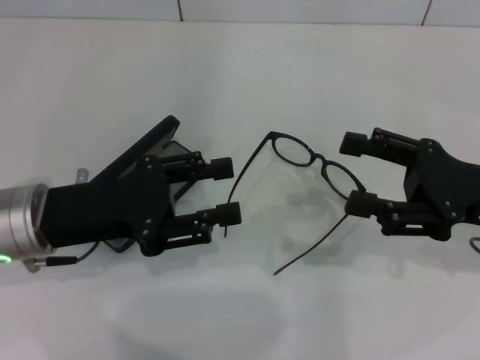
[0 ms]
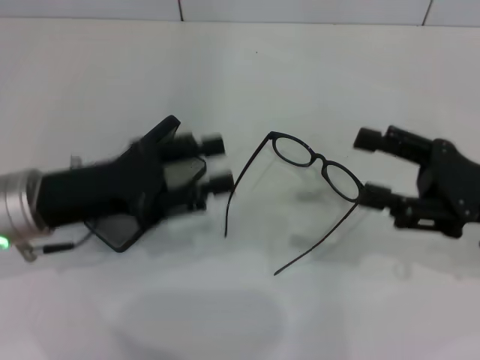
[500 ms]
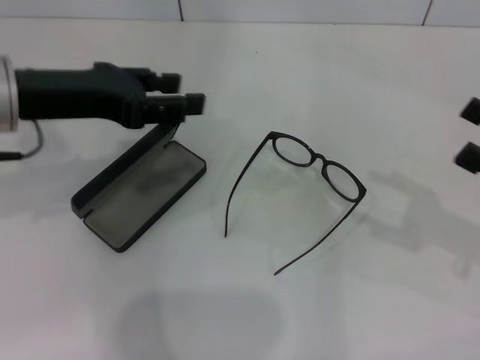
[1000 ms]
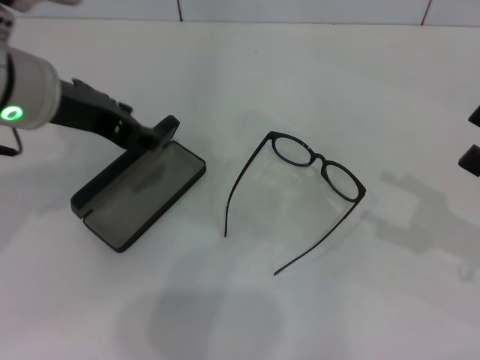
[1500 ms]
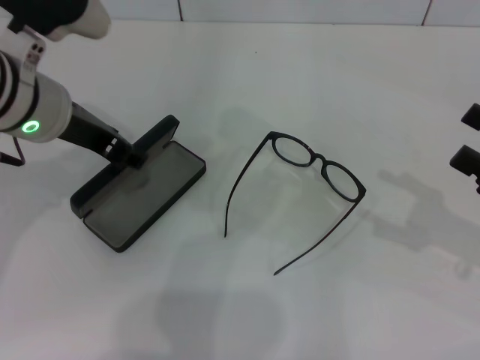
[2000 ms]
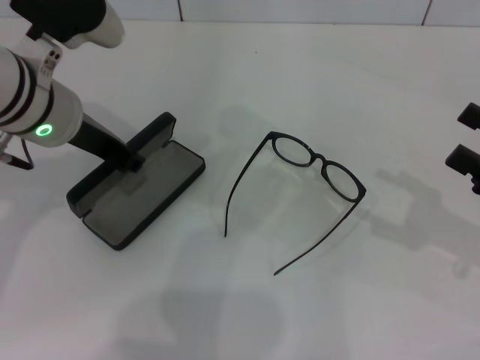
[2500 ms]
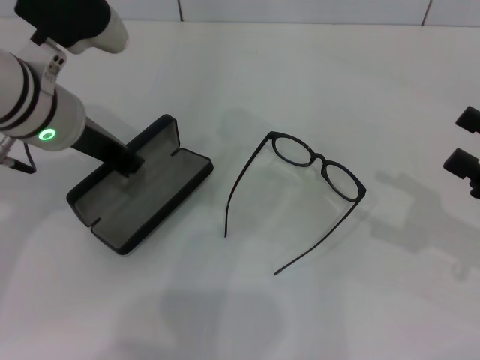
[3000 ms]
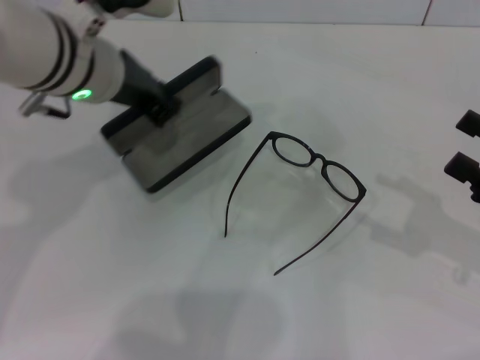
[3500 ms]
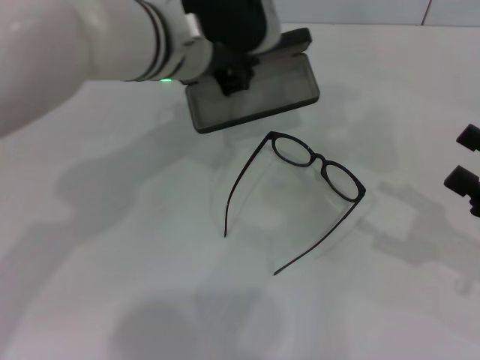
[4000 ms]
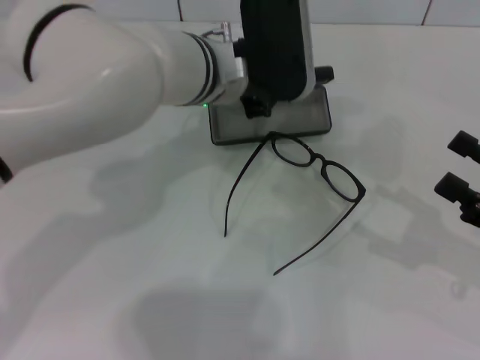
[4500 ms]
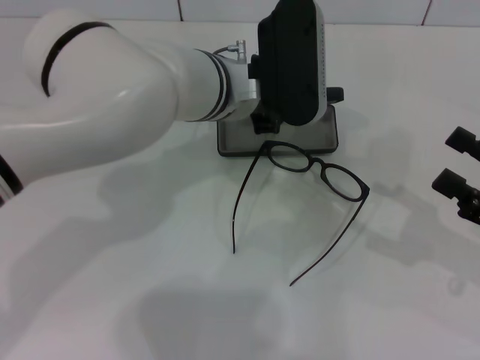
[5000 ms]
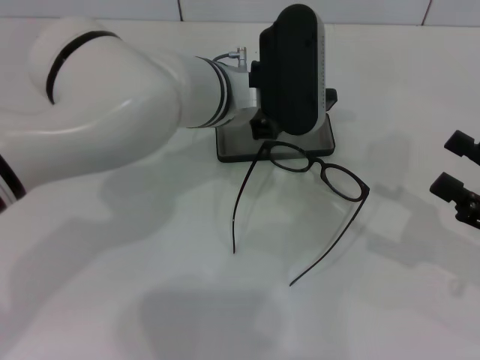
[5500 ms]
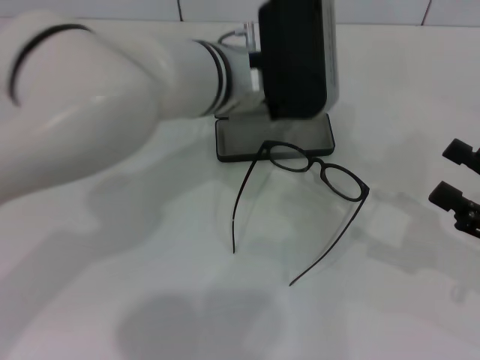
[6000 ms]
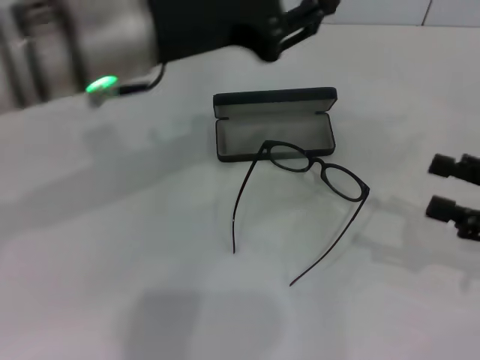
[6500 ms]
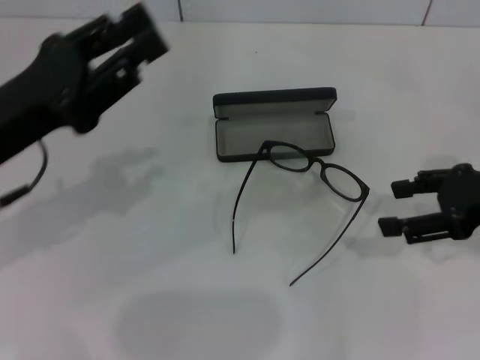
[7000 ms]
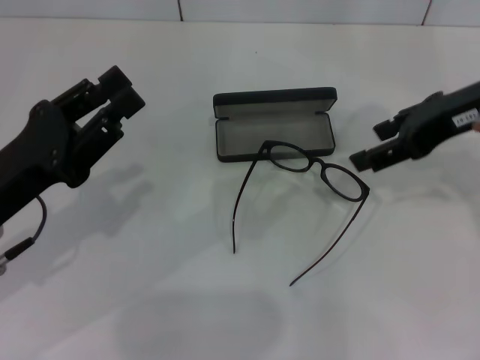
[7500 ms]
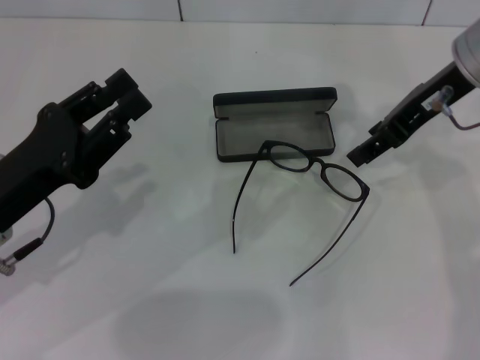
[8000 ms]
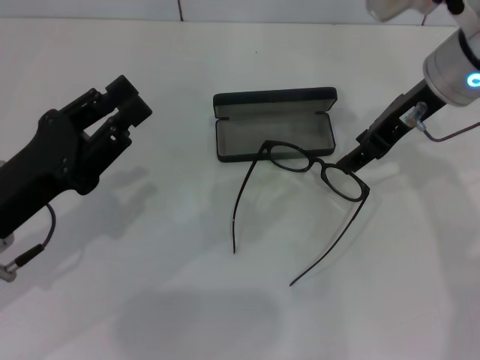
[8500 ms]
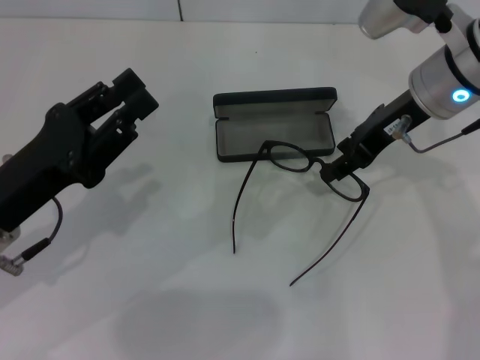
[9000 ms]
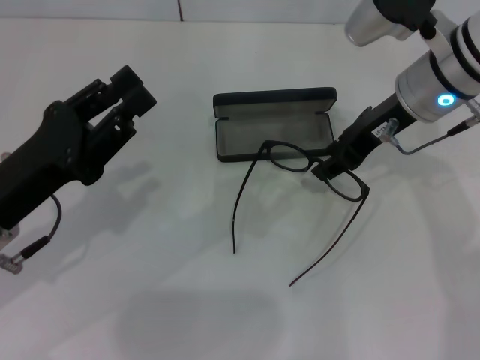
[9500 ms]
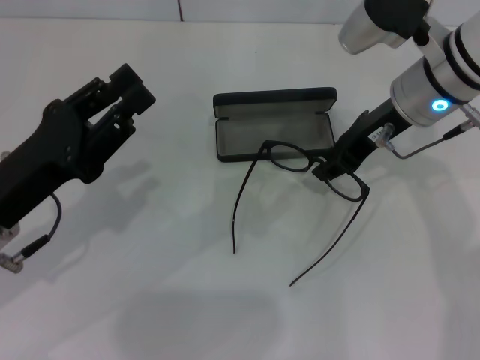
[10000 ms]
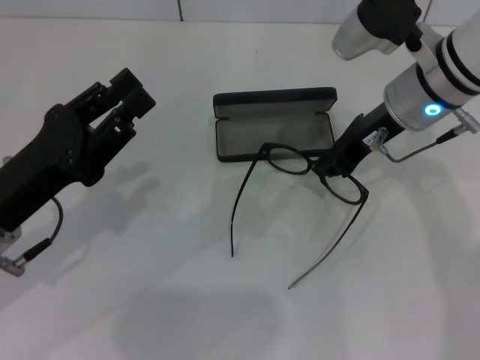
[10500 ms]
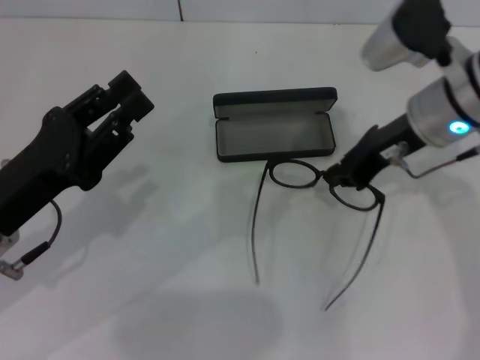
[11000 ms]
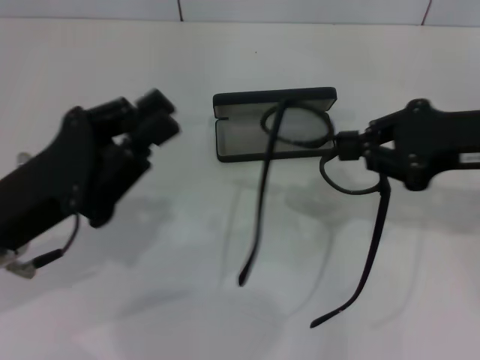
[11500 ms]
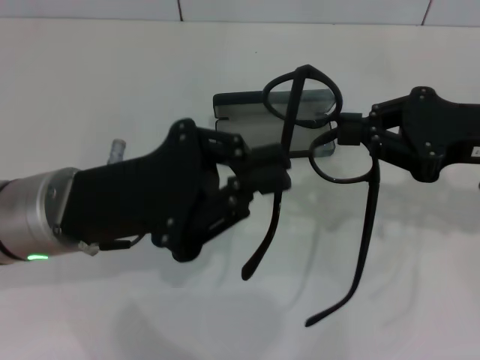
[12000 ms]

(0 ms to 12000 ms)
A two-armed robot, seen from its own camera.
Step, 0 ms - 2500 ms: Grab the glasses case with your left hand.
Step, 3000 ms - 5500 ms: Place the glasses case in the center of the table with your left hand.
Step, 6000 ms - 10500 ms: Grab the eyeglass frame with your right hand.
0 ms - 2000 ms: The left gripper travels upward and forward by about 10 cm; the right gripper goes roughly 10 cm to the right.
2000 ms - 4000 ms: The left gripper goes some 10 cm to the right, and closes up.
6000 ms - 8000 ms: The left gripper goes about 25 cm to the left and backward, while the right gripper travels forward, upward and to the left by approximately 25 cm.
8000 ms - 10000 ms: The right gripper heads downward, covering roughly 5 cm, and closes.
10000 ms - 12000 ms: The right gripper is displaced to the right and backward by about 15 cm, and closes. Meanwhile the left gripper goes about 5 cm to the right, and closes its fingers.

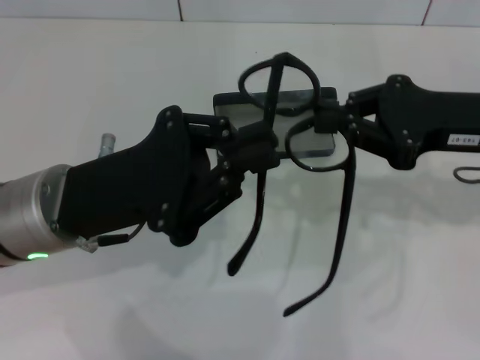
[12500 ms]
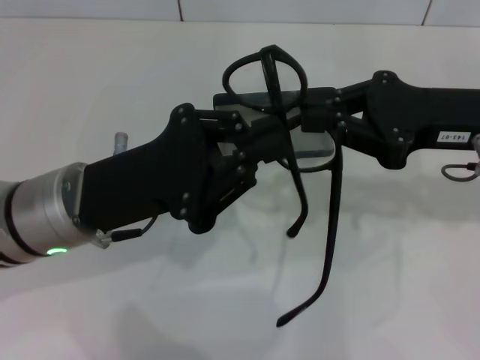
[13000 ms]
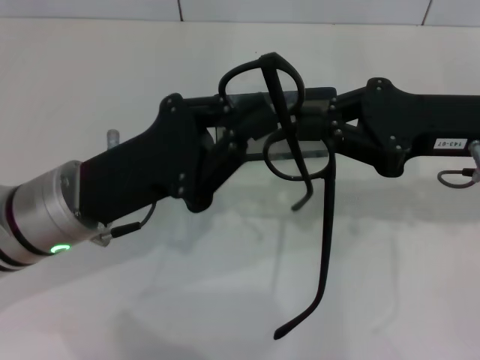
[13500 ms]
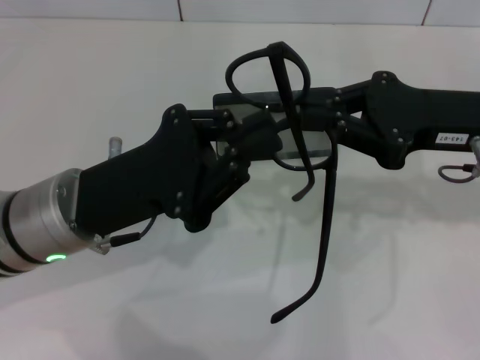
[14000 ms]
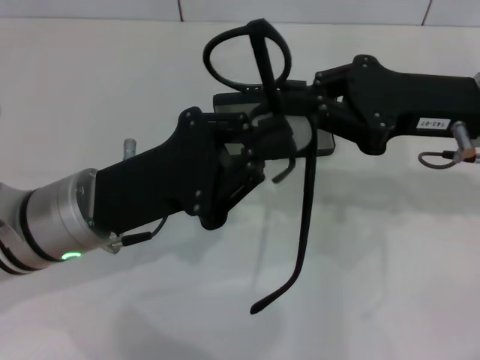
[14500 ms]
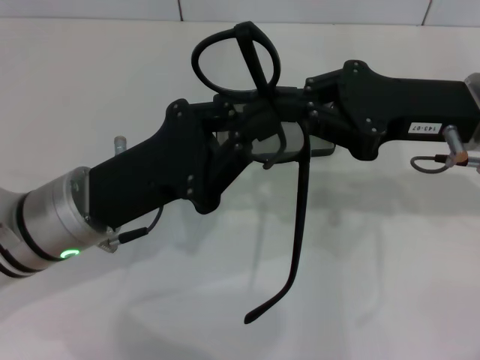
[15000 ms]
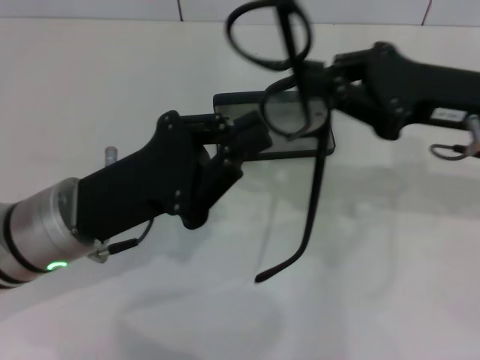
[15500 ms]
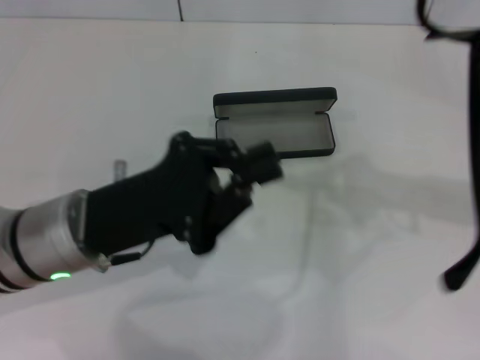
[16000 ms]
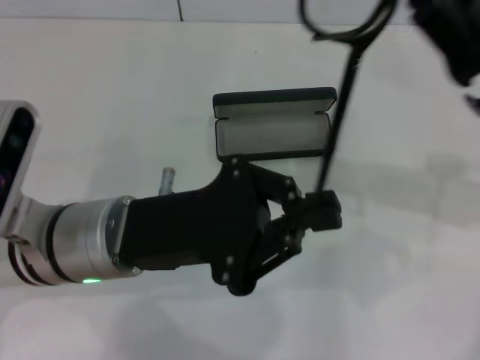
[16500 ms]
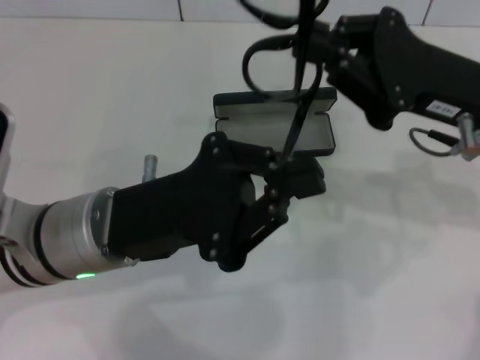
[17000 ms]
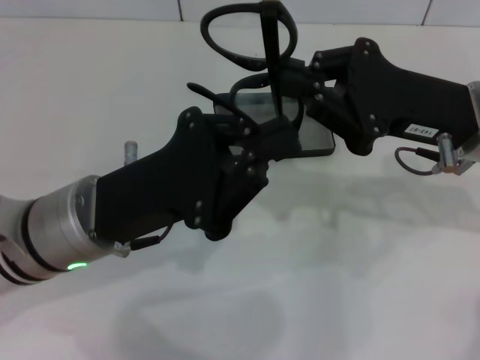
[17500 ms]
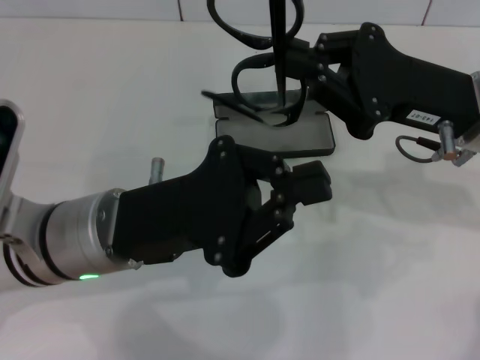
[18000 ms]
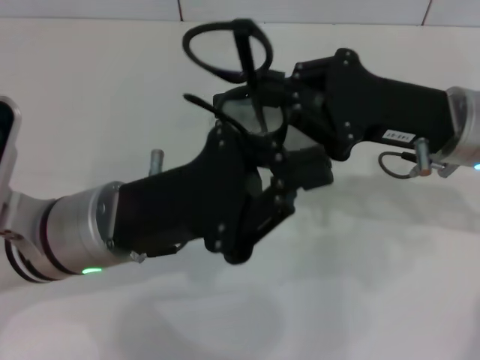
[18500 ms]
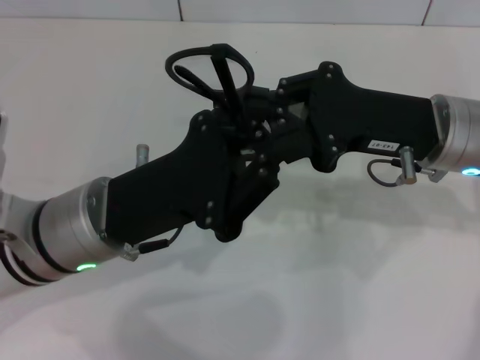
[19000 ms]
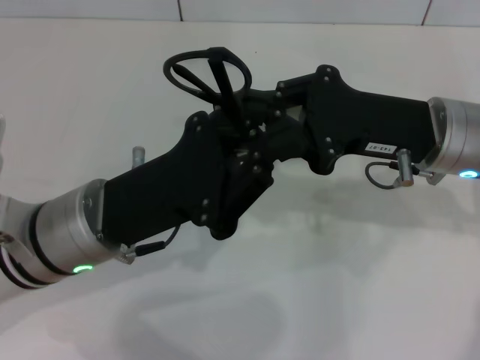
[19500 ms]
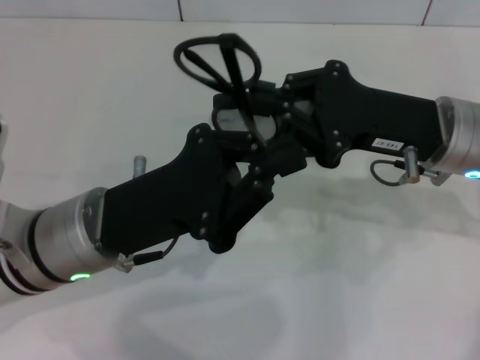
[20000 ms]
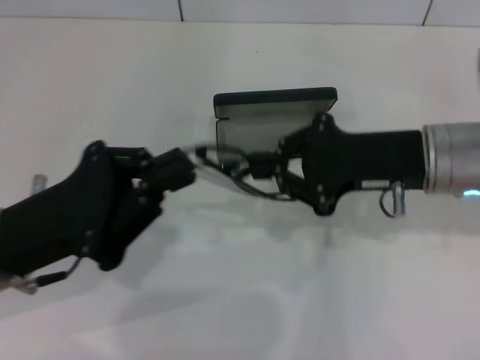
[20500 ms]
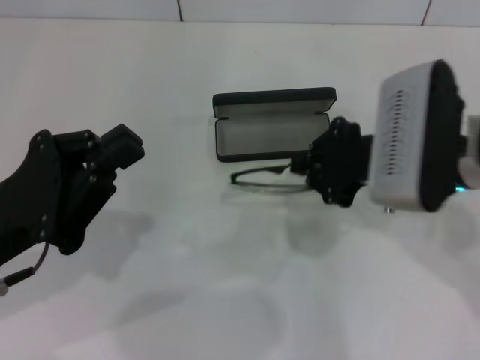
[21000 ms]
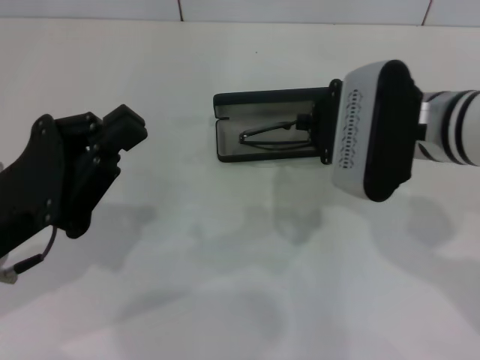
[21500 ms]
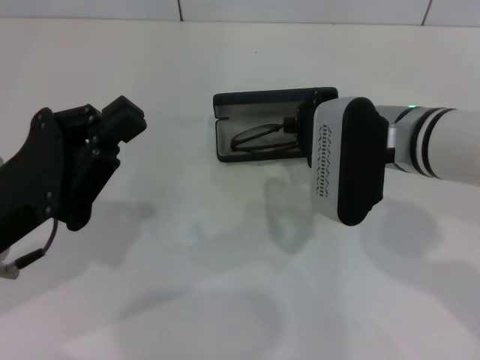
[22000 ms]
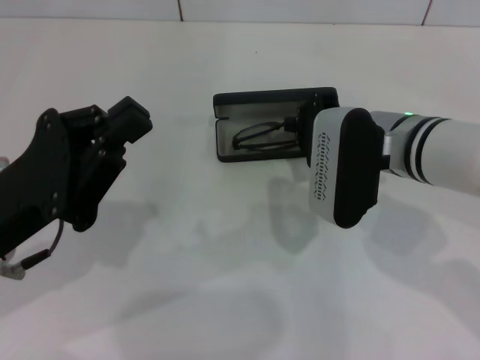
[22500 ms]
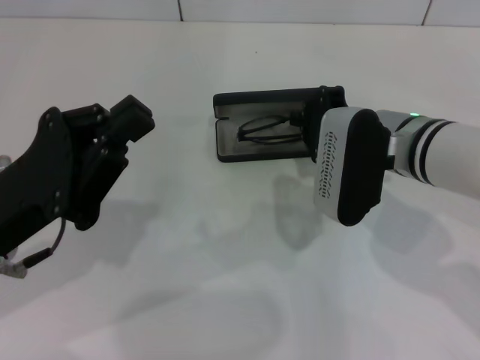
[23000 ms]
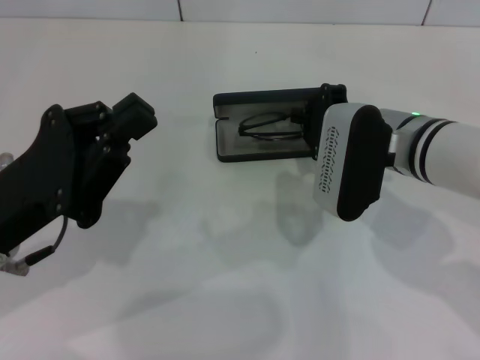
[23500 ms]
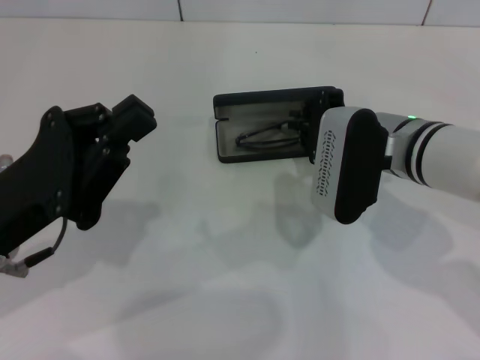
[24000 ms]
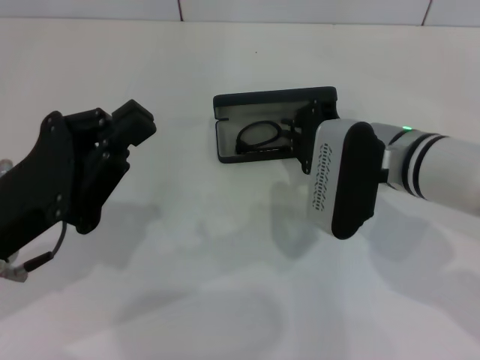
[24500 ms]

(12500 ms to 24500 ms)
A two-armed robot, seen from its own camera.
Step, 12500 ms - 19500 ms: Fold the frame with your left hand.
12500 ms - 14500 ms: The grippers move only a little.
14500 ms - 16500 ms: The right gripper moves approximately 10 cm to the right and comes back.
16500 ms - 18500 ms: The right gripper ends up approximately 5 cm from where it was.
18500 ms - 20500 ms: The left gripper goes approximately 10 cm to the left.
20500 ms - 22500 ms: The right gripper heads to the left, covering about 5 cm.
22500 ms - 24500 ms: The grippers make only small movements.

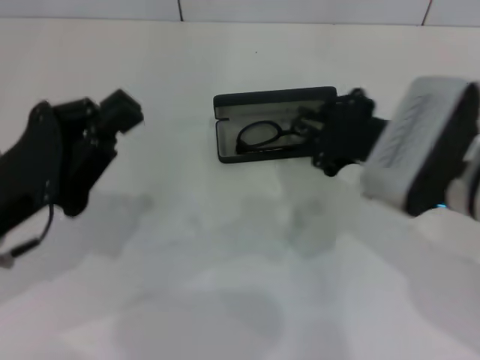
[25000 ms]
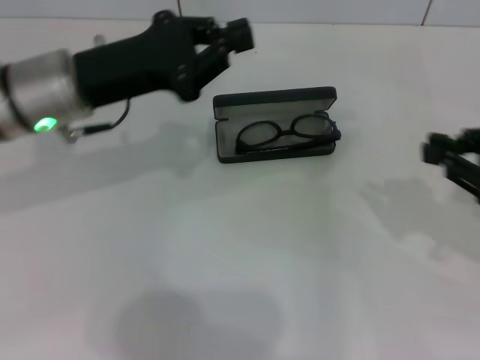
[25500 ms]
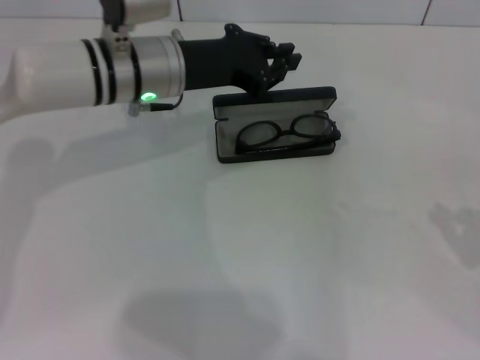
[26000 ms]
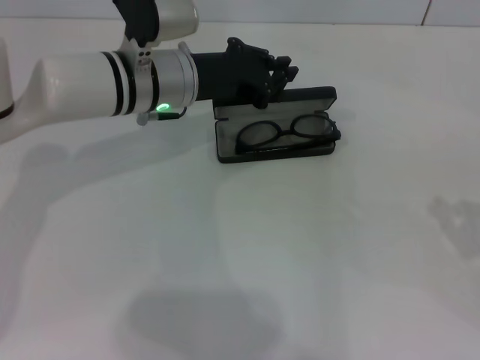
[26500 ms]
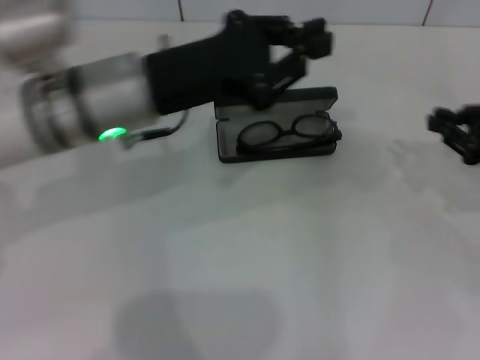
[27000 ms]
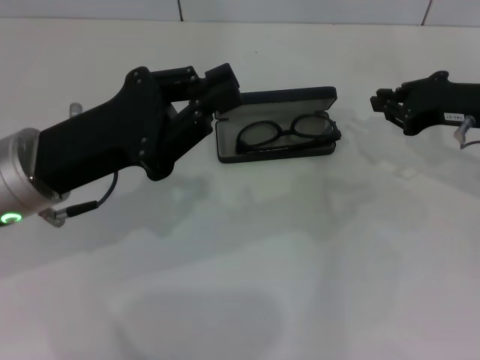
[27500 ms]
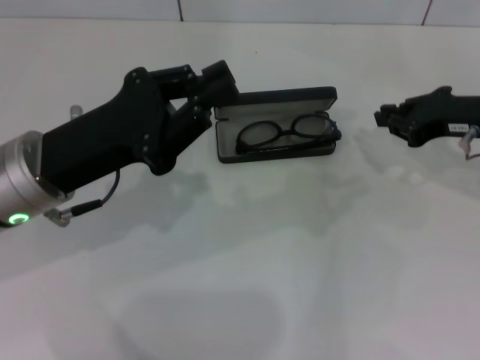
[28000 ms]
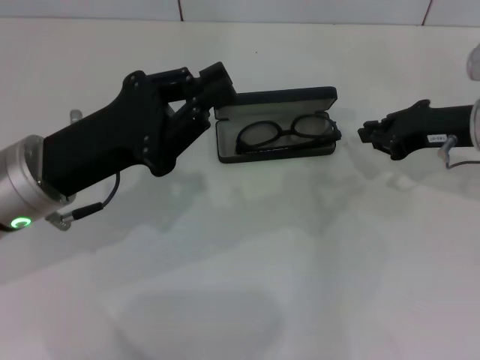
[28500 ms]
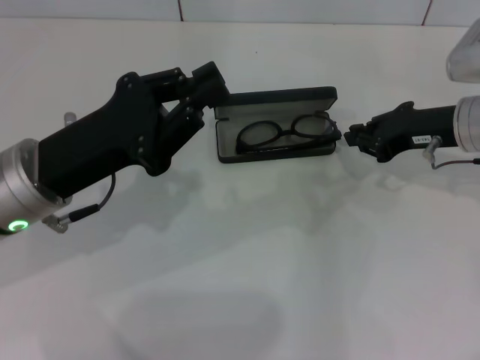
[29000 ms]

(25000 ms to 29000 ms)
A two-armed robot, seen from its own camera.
25000 ms - 27000 ms: The right gripper travels to the right by approximately 15 cm. The left gripper shifts roughly 15 cm forward, to the right and upward.
27000 ms - 29000 ms: The left gripper moves to the left and backward, about 10 cm. The right gripper moves to the left and forward, about 10 cm.
